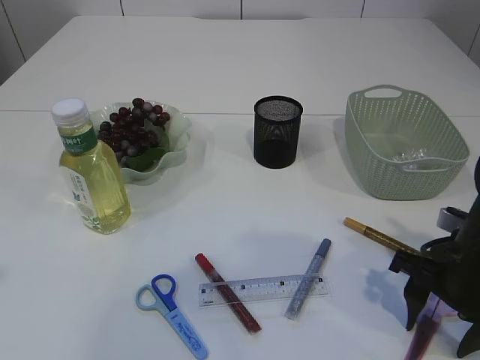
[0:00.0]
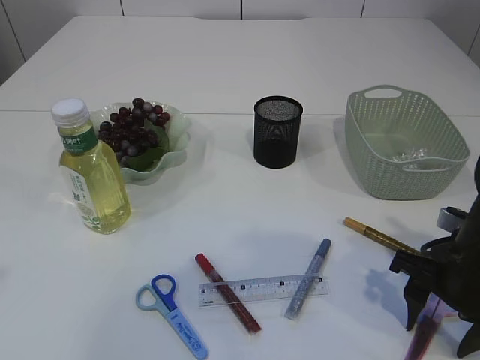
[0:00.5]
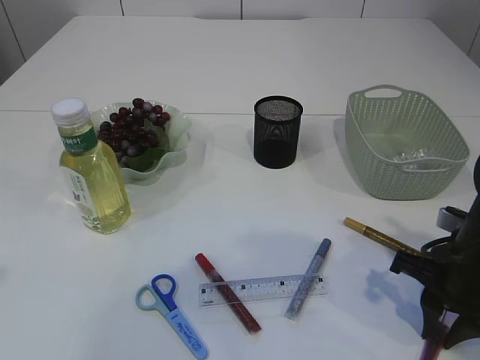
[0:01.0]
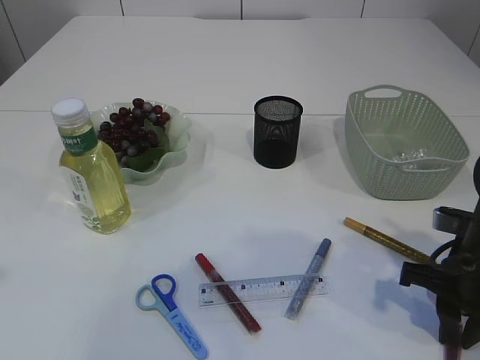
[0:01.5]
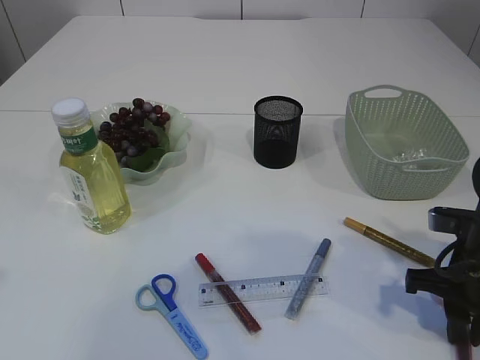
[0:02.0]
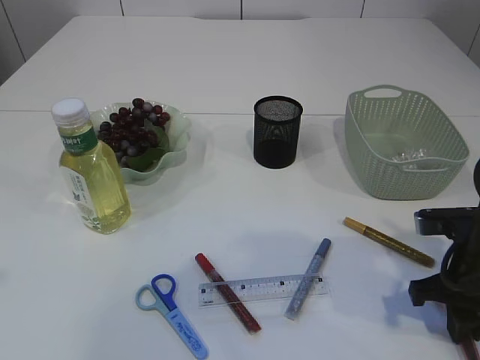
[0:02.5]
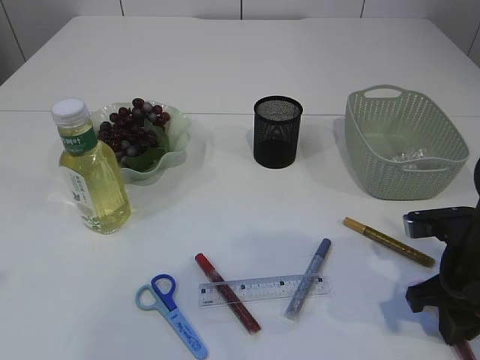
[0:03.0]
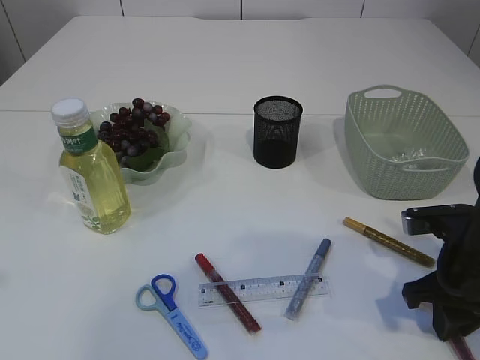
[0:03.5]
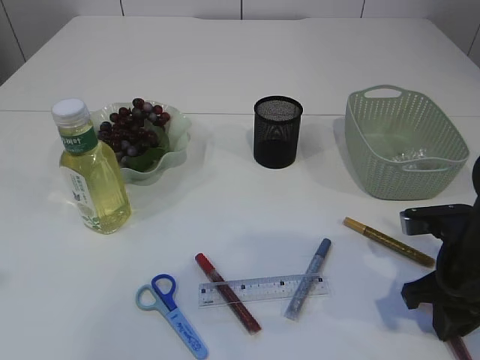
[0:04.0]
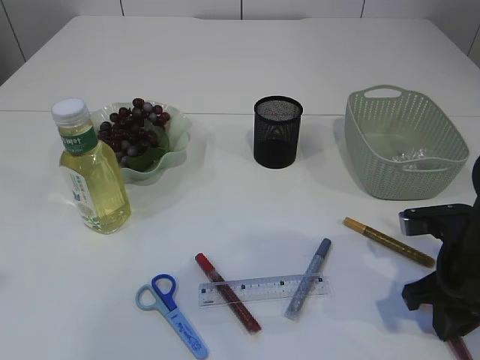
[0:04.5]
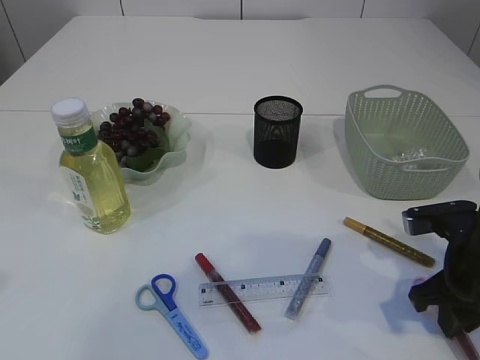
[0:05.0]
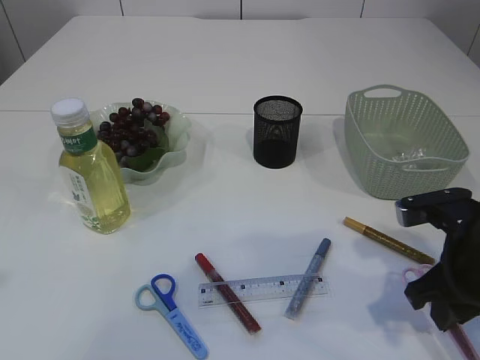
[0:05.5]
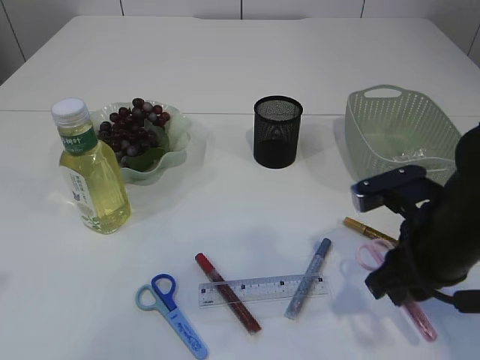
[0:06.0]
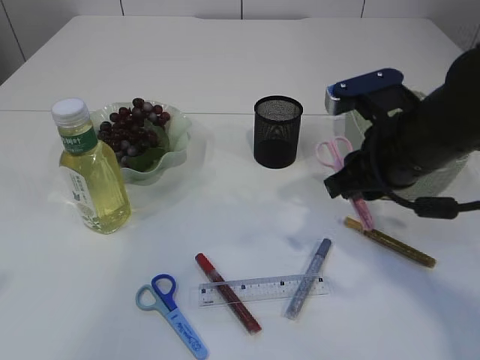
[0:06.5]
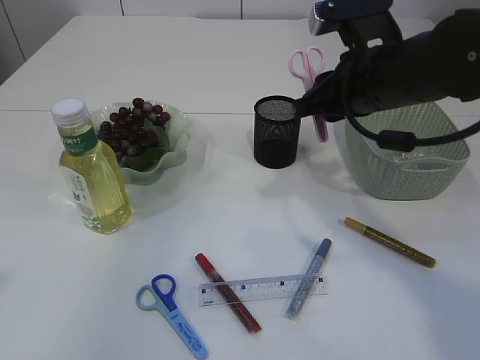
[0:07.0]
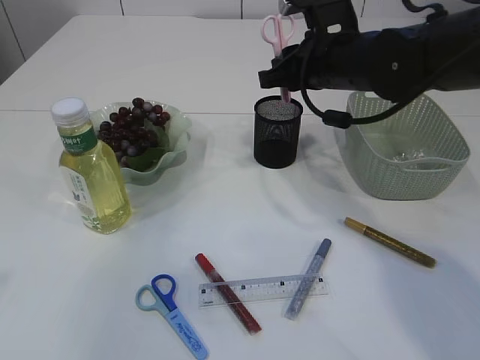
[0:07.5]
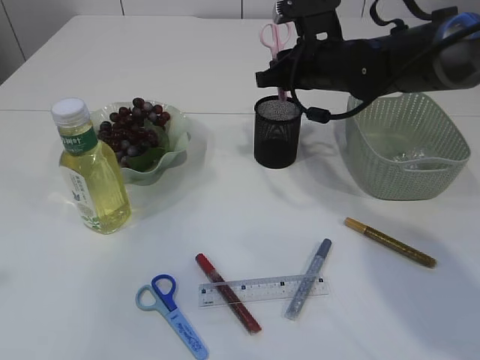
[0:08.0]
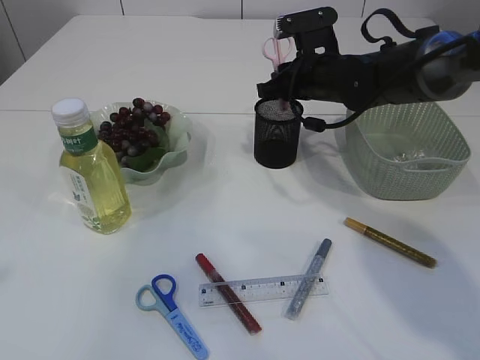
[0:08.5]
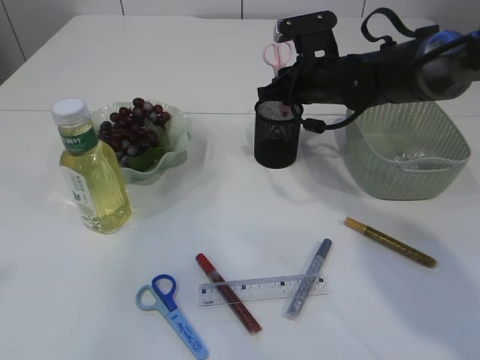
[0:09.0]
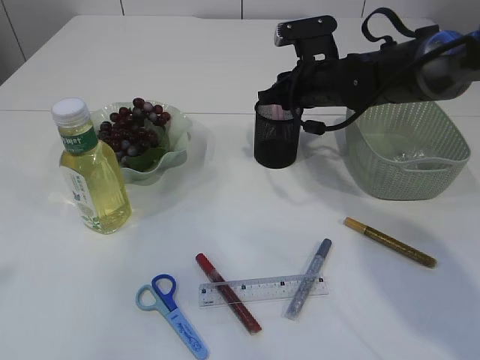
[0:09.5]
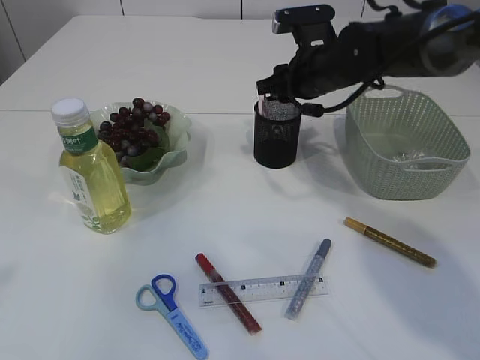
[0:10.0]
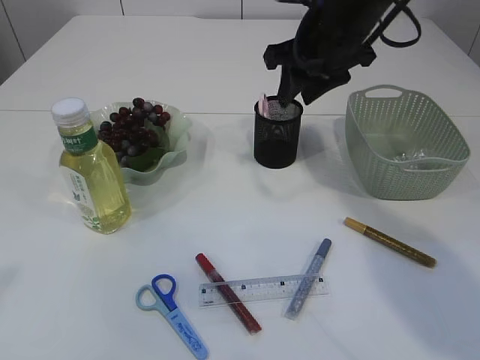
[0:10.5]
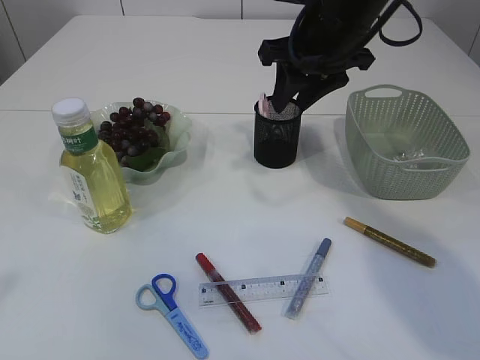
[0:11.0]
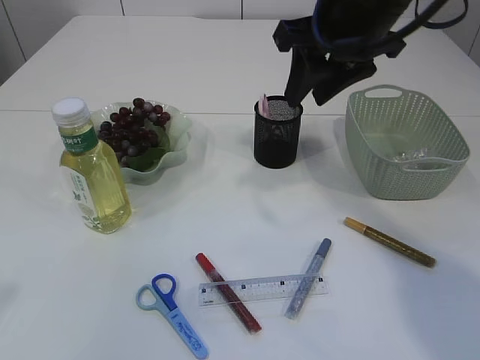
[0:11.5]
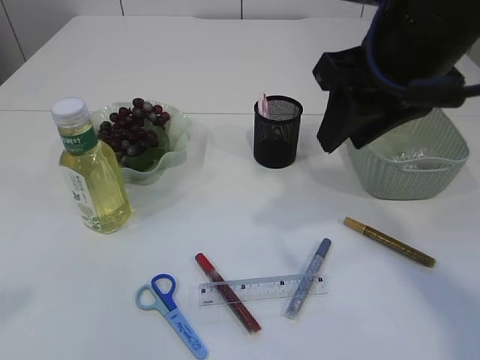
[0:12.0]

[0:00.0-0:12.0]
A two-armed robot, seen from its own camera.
Step, 0:00.0 to 0:06.0: pick up the pink scissors.
Step, 0:06.5 to 0:10.0: Place the pink scissors into the pen holder.
0:00.0 to 0:02.0: The right gripper closes its fingers.
0:04.0 to 0:06.0: The right gripper shifts roughly 10 cm to the left and upward.
0:06.0 to 0:08.0: The right gripper goes about 20 cm forward.
0:08.0 to 0:10.0: The grippers make only small movements.
0:10.0 to 0:12.0: The right gripper heads backward and upward, covering roughly 20 cm.

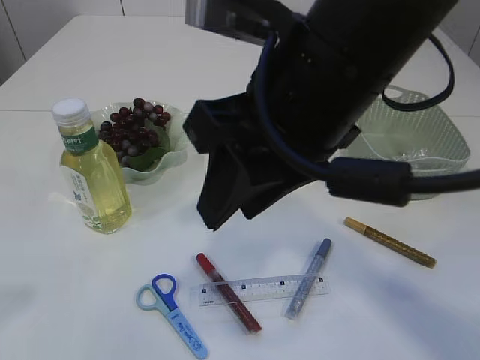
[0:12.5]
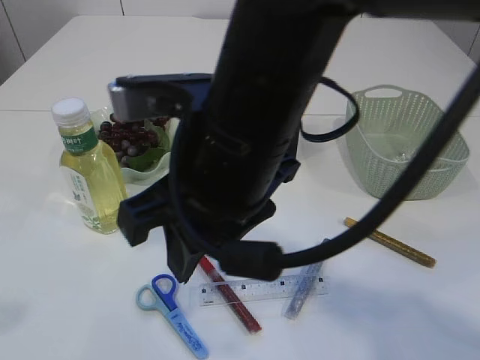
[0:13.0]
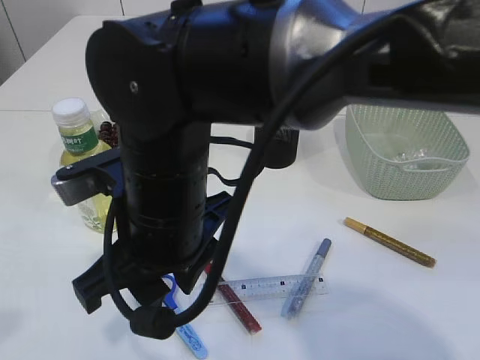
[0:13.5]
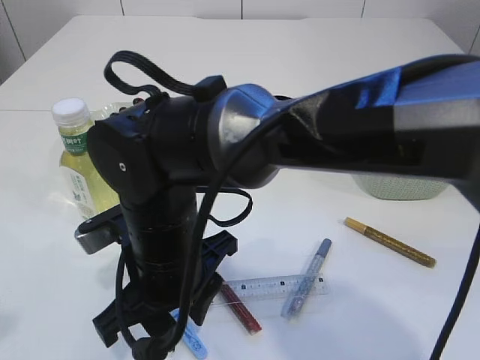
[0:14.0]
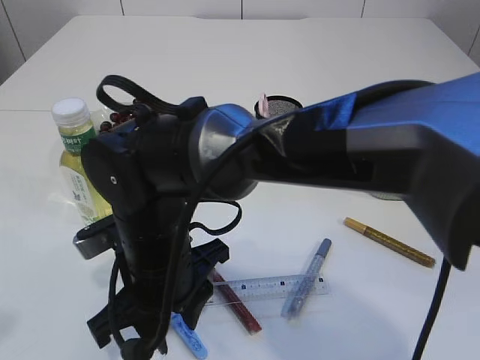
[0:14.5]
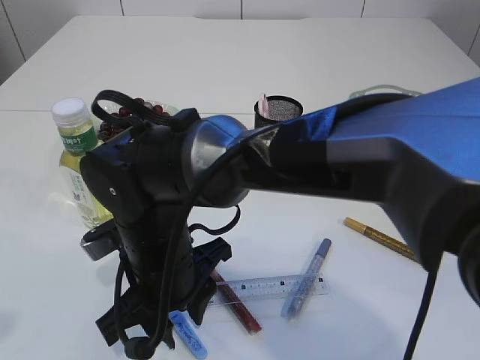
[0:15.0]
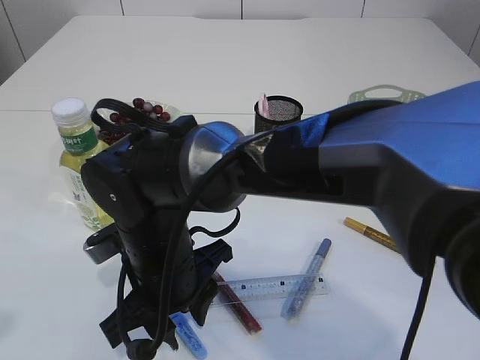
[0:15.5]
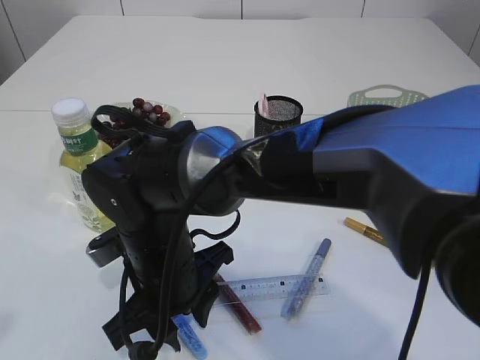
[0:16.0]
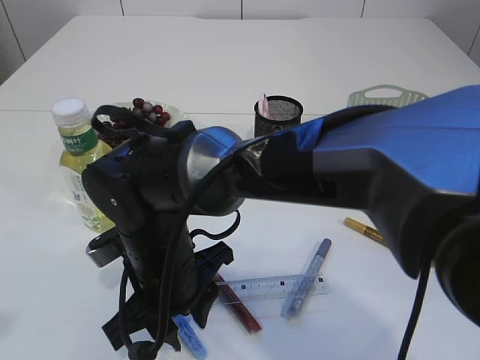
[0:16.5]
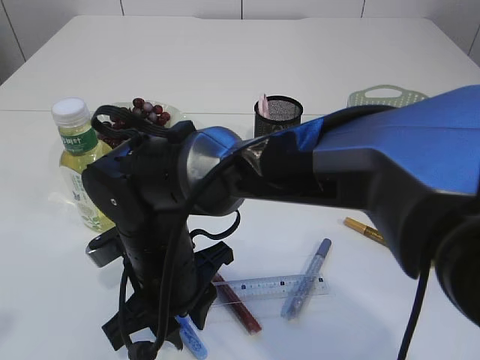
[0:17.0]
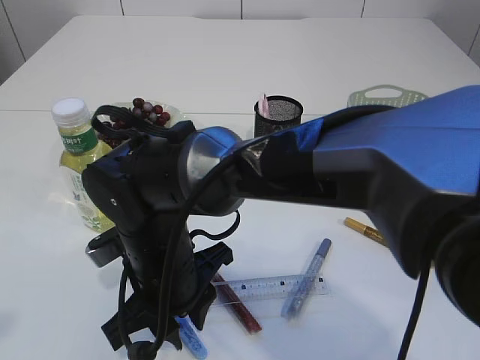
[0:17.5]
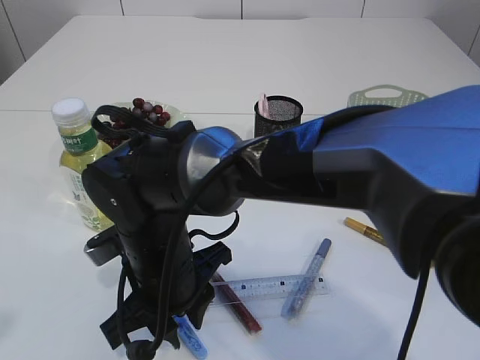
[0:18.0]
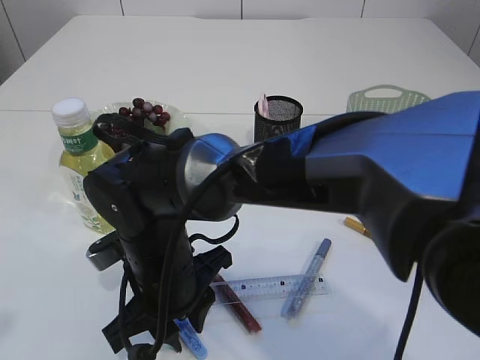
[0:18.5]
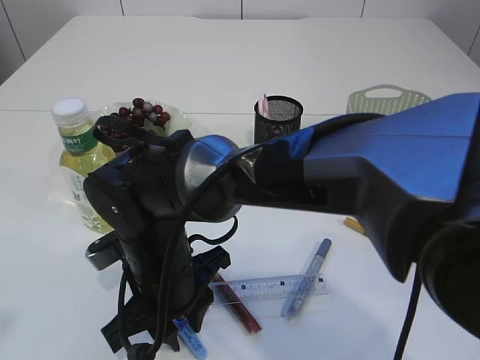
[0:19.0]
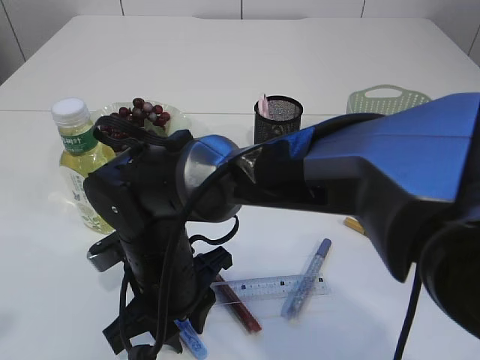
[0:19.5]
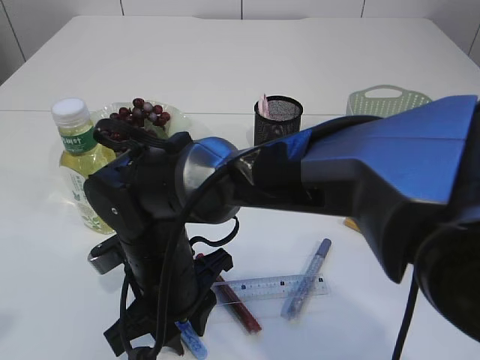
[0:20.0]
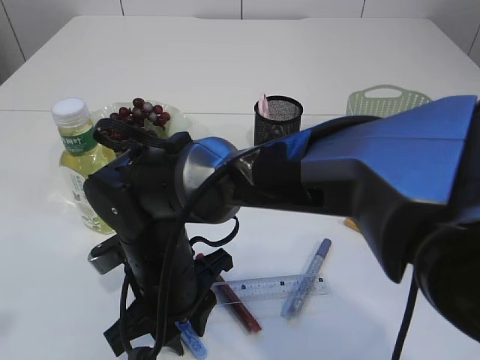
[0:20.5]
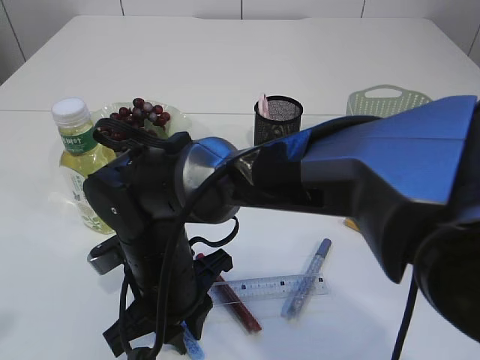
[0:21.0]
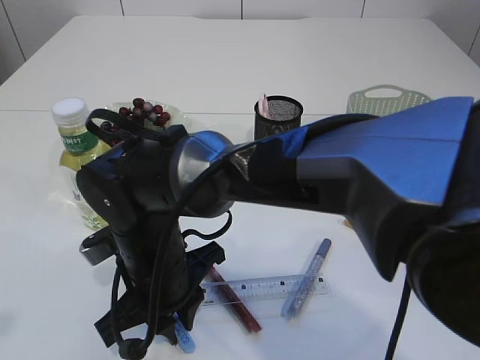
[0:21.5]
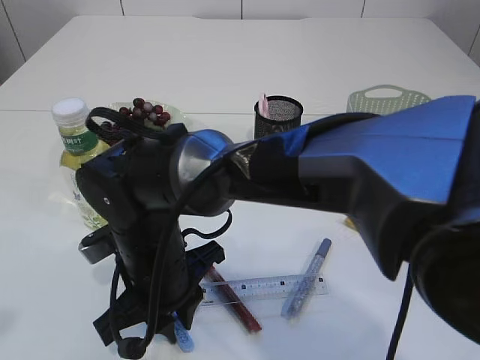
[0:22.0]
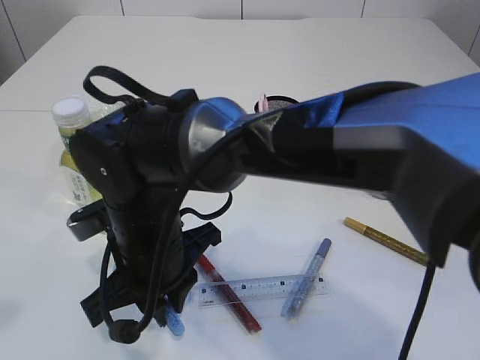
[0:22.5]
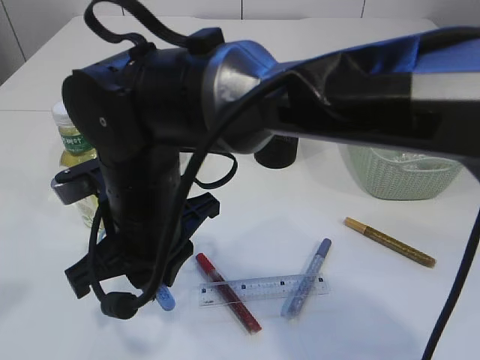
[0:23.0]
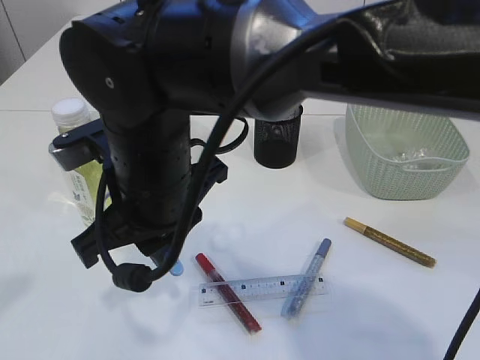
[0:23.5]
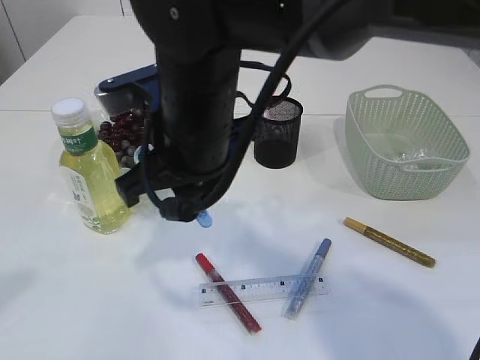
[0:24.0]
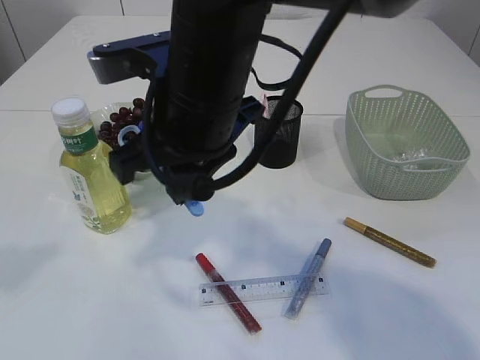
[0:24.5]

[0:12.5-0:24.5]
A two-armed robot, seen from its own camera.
Step, 0:12.5 to 0:22.5: pick up the blue scissors.
0:12.5 to 0:14.5: The right gripper heads downward and to the left, covering about 25 cm.
0:16.5 to 0:20.5: Neither gripper changes place.
0:22.5 to 0:24.5: The right gripper shifts roughly 15 cm upward and to the right.

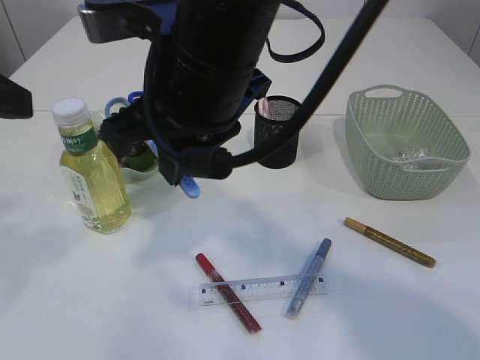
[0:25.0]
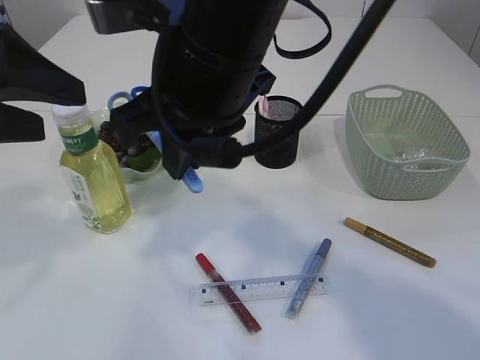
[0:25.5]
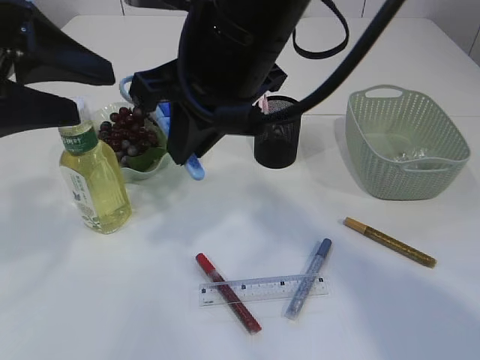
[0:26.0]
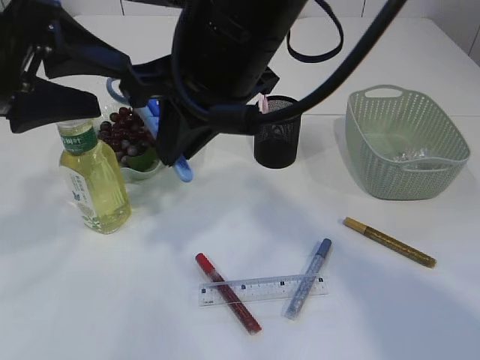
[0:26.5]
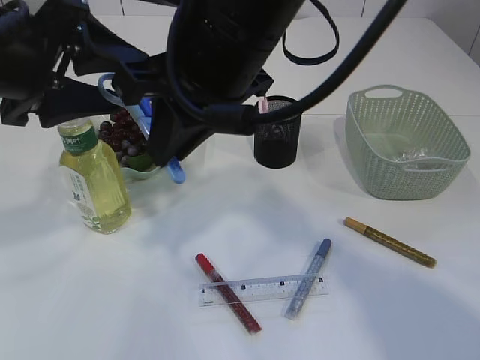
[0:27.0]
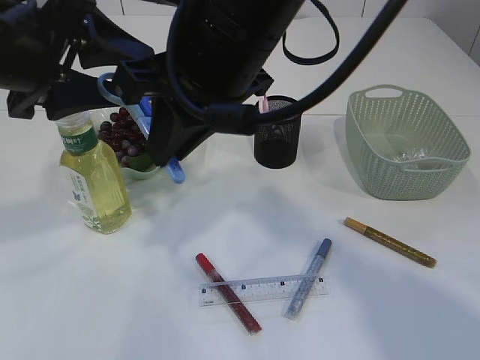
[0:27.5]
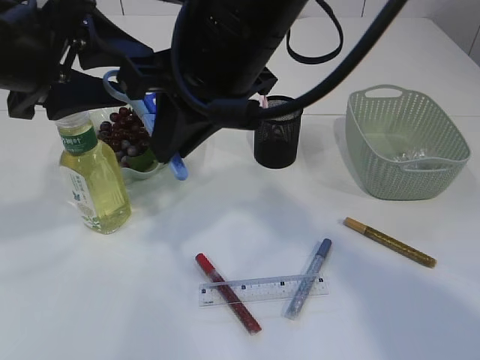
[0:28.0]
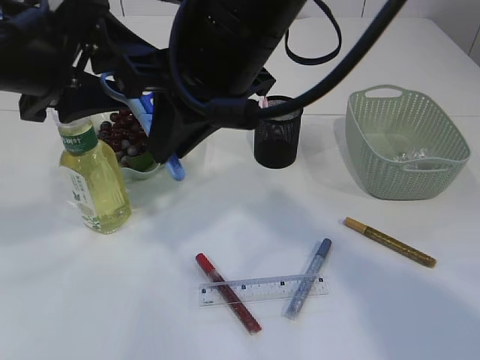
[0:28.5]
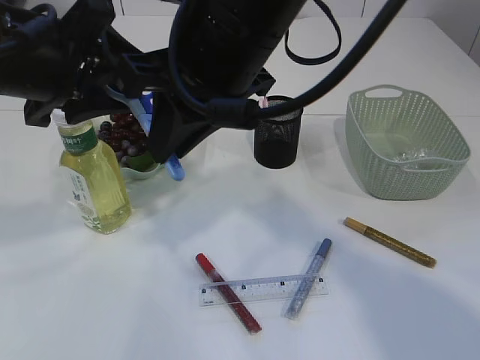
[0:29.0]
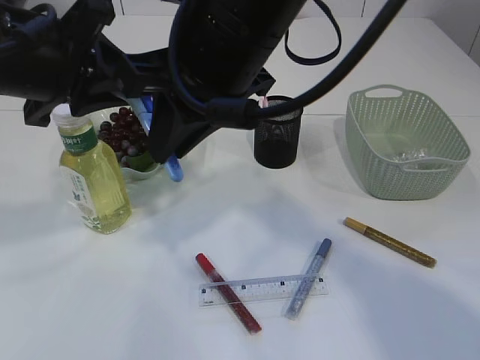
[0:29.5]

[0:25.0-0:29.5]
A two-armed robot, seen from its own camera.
0:25.0 to 0:27.0: The left gripper moves forward, about 10 cm.
0:27.0 to 0:29.5: The left gripper closes up.
